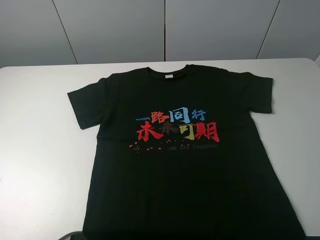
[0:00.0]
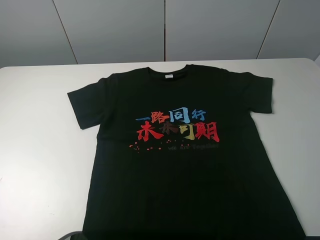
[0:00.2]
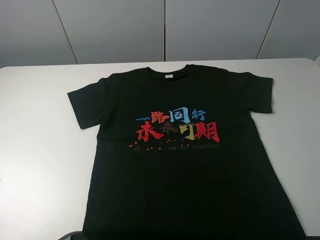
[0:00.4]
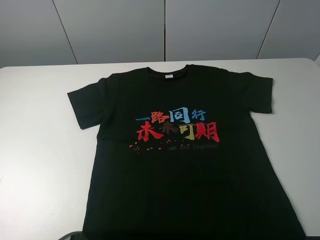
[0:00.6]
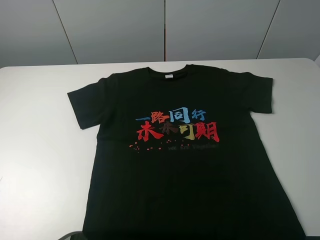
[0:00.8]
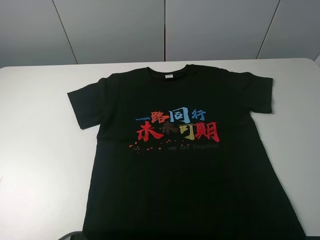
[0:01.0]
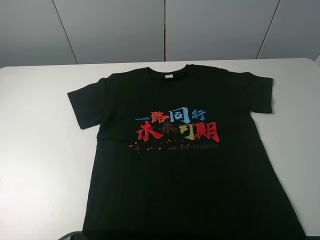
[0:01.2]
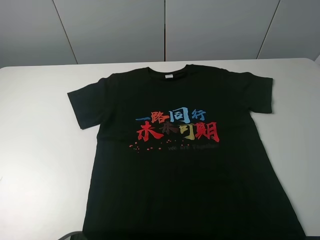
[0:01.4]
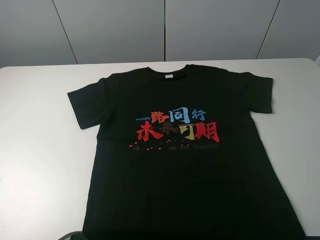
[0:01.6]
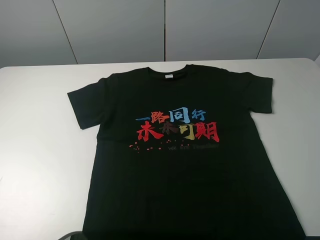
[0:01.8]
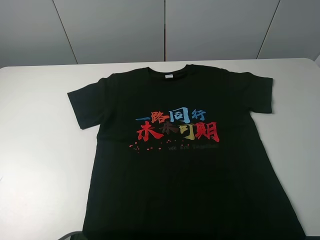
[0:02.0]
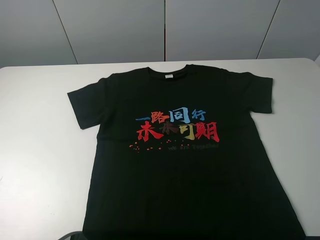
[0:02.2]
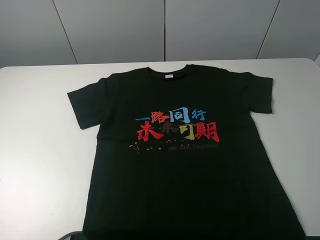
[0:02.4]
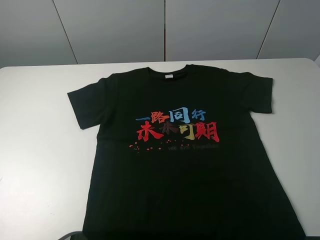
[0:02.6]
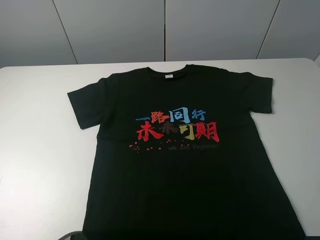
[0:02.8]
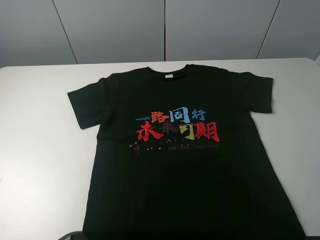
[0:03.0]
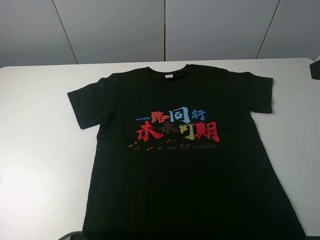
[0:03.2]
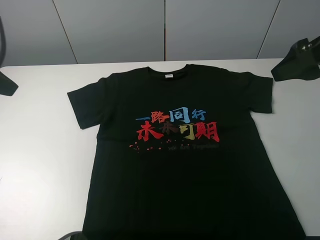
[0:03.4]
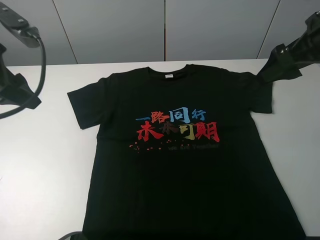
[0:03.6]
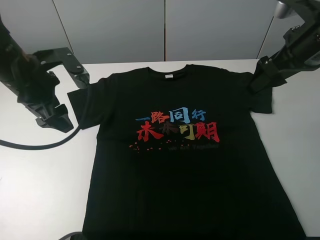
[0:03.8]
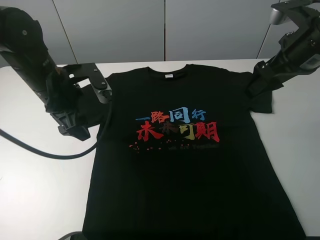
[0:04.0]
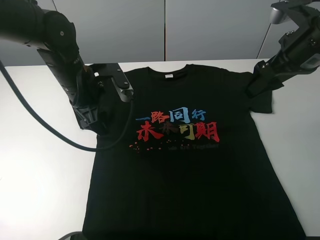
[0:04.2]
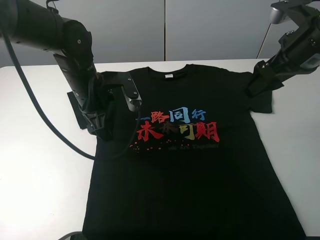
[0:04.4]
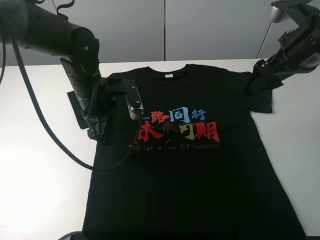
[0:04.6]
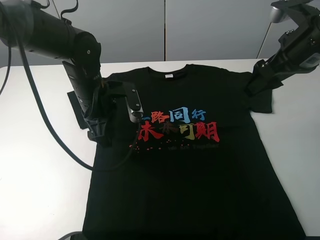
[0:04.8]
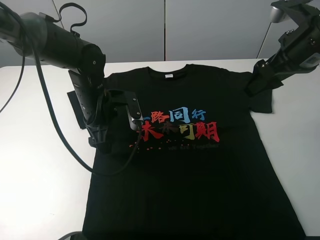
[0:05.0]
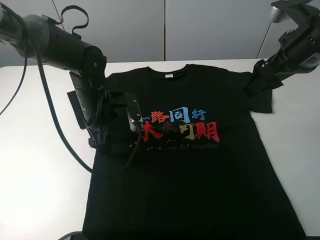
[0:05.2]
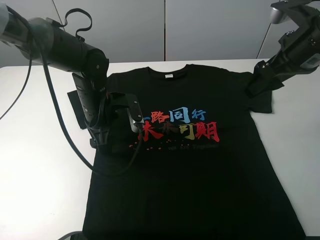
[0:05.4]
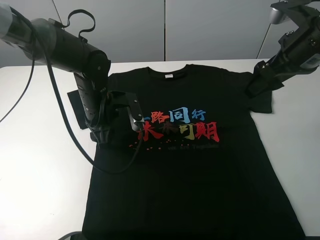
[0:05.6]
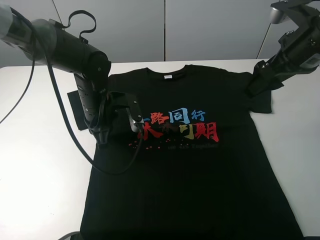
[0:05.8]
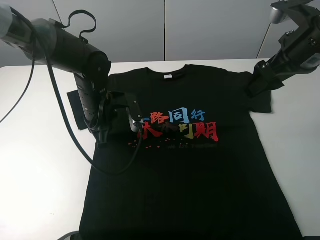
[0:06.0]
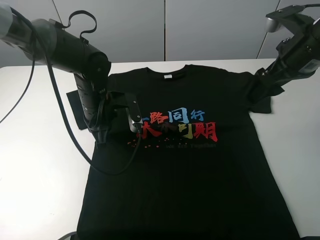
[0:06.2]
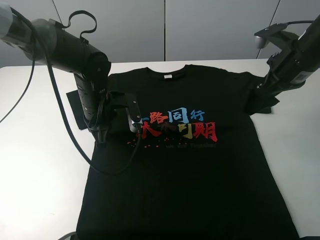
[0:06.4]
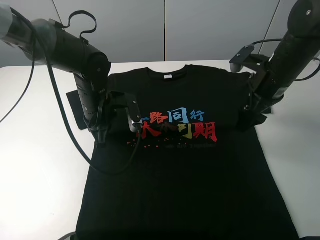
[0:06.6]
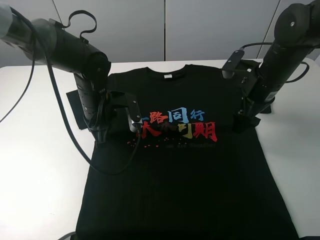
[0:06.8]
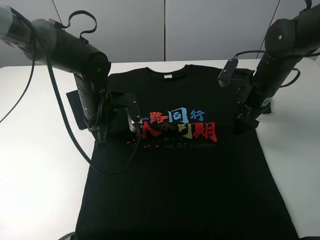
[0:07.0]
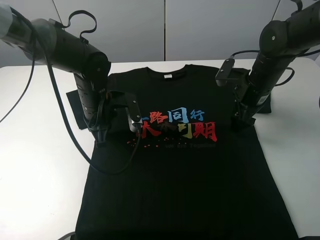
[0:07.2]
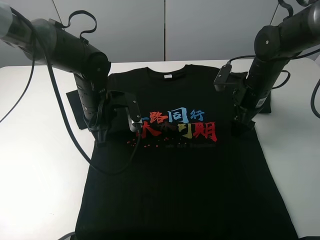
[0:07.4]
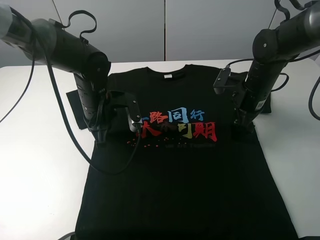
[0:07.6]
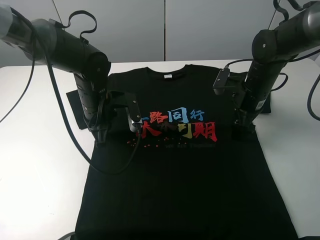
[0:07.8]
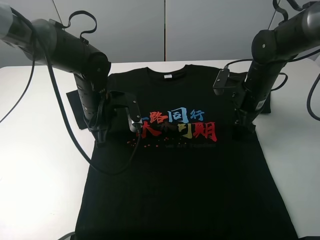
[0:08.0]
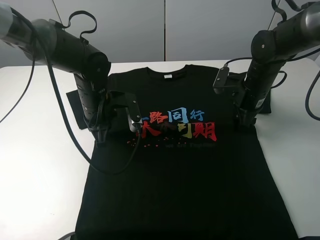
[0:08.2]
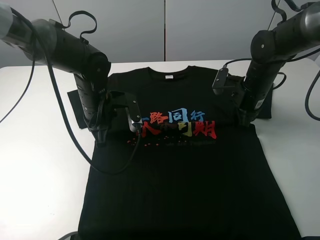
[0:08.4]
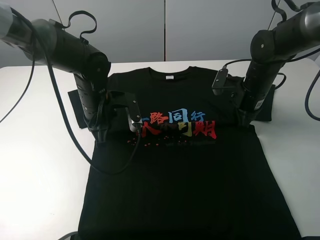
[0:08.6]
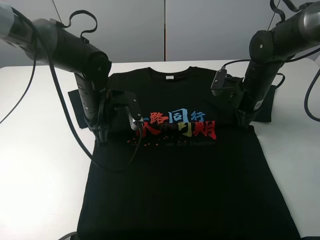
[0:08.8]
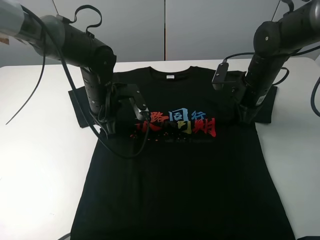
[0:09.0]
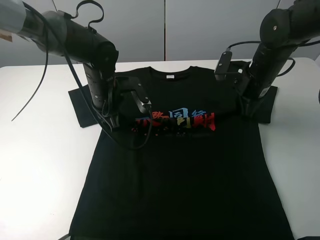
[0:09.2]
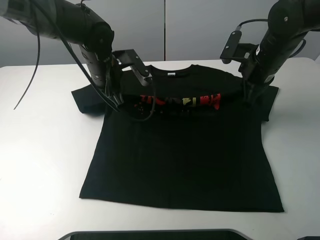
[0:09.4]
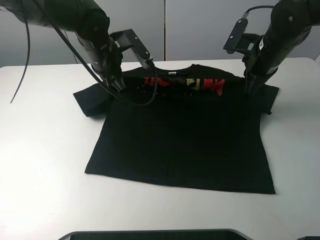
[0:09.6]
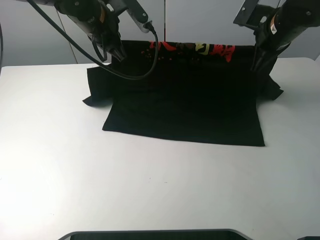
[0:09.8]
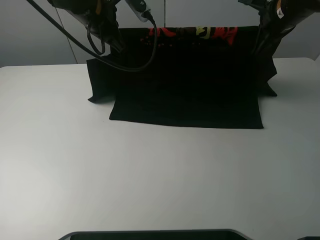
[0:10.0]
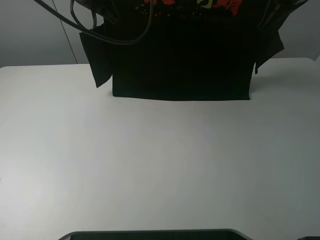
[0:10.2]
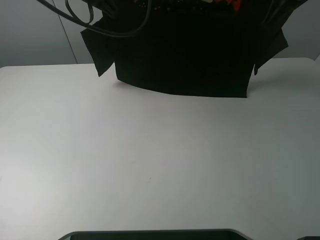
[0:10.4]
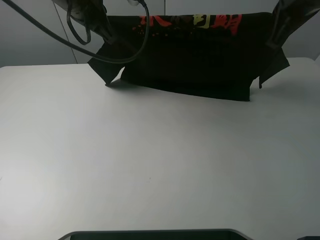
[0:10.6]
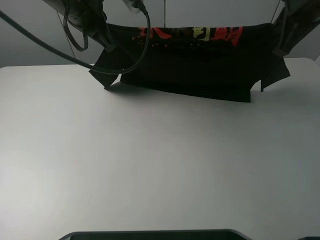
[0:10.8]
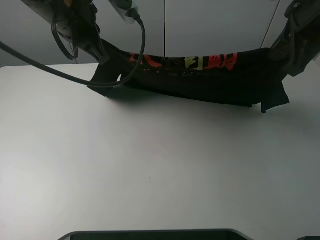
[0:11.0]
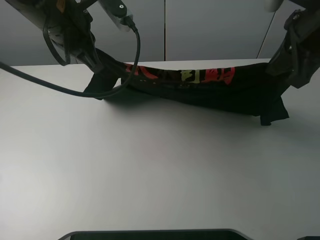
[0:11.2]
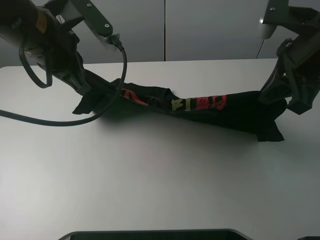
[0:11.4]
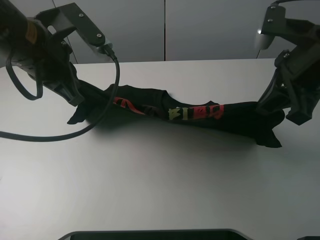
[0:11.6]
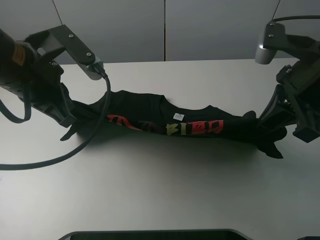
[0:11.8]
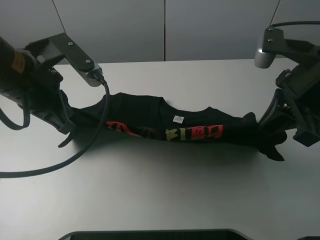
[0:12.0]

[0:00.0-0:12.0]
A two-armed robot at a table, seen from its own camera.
Task of the whole recording: fold the clothes on the table.
Step, 0:00.0 to 0:08.6: Lift the black T-shirt with the left gripper.
0:00.0 to 0:01.6: Both grippers stay put.
0:03.0 to 0:04.4: The right gripper heads forward and downward, covering some 20 cm. The left gripper shifts about 35 cm downward, to the right and forward.
0:04.4 to 0:06.0: The left gripper closes up.
0:06.0 to 0:07.6: The right gripper heads downward, covering some 15 cm.
0:07.6 to 0:09.0: The right gripper closes up.
0:09.0 to 0:10.4: The two grippers go approximately 20 cm upward.
0:10.4 to 0:12.0: The right gripper is displaced backward by roughly 15 cm; the left gripper goes roughly 20 cm backward, downward and to the left.

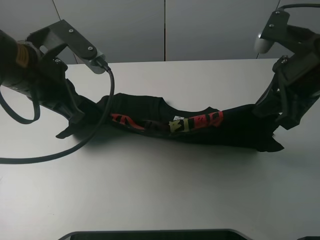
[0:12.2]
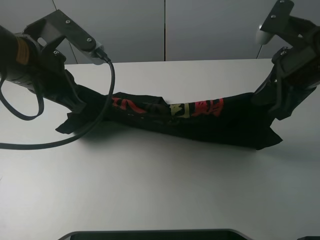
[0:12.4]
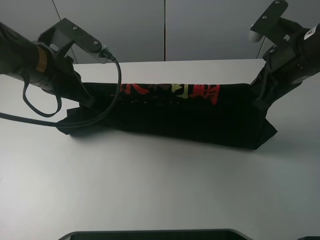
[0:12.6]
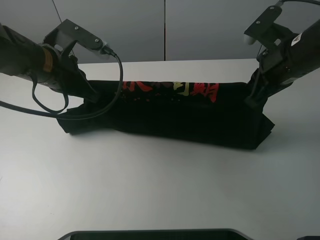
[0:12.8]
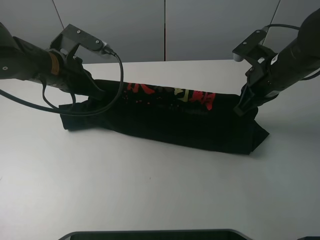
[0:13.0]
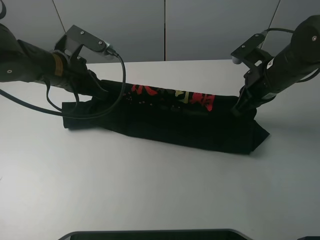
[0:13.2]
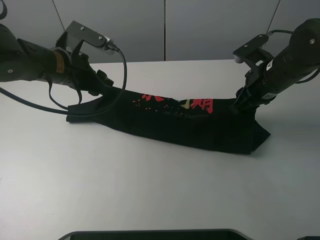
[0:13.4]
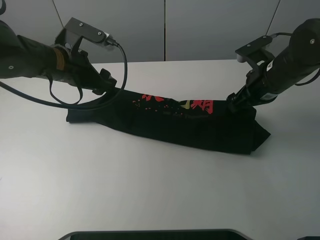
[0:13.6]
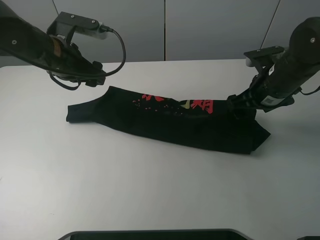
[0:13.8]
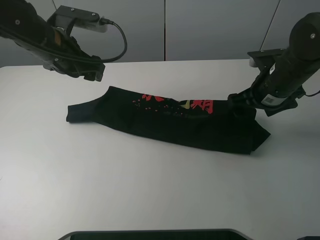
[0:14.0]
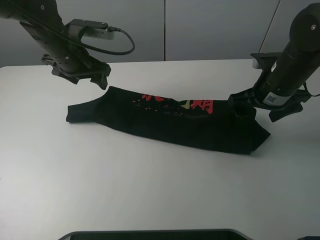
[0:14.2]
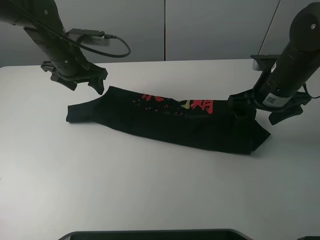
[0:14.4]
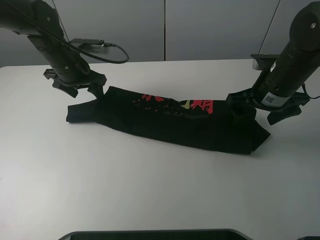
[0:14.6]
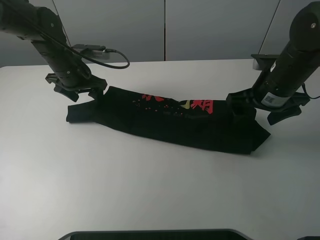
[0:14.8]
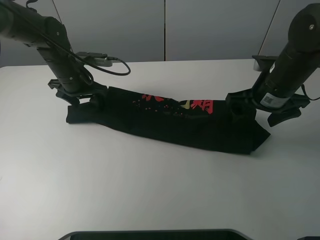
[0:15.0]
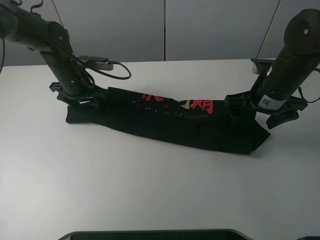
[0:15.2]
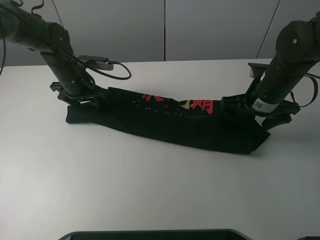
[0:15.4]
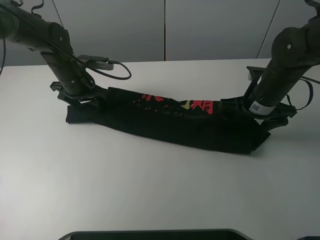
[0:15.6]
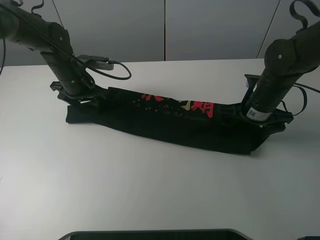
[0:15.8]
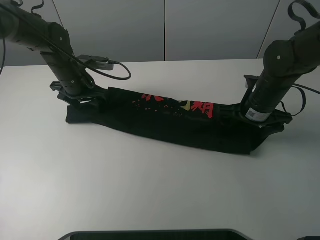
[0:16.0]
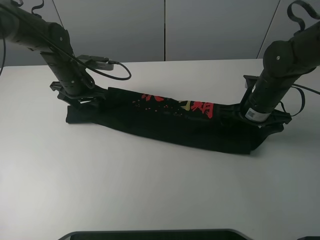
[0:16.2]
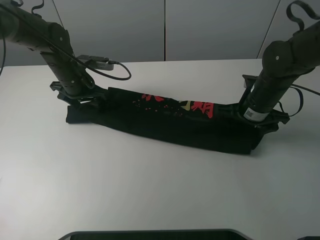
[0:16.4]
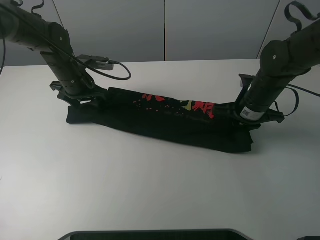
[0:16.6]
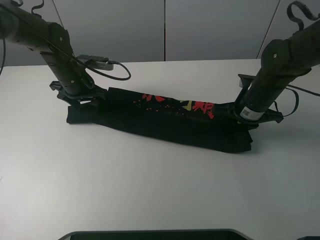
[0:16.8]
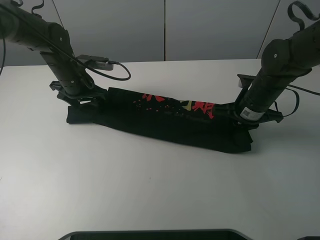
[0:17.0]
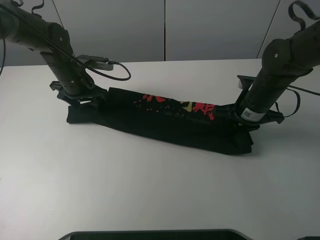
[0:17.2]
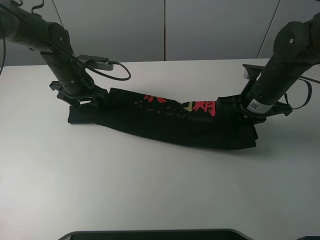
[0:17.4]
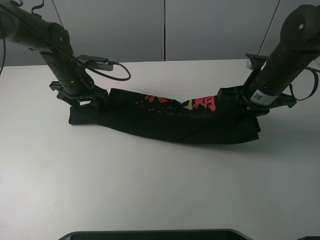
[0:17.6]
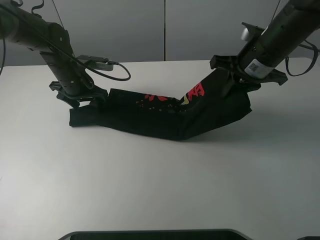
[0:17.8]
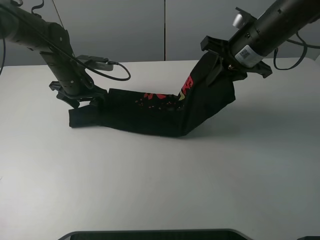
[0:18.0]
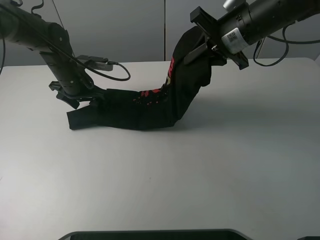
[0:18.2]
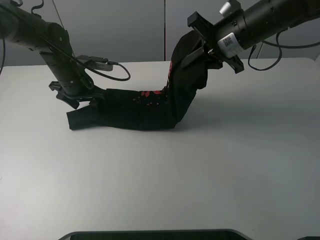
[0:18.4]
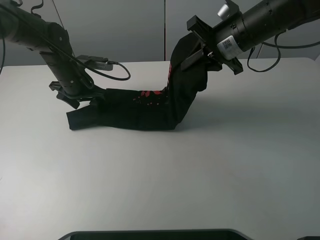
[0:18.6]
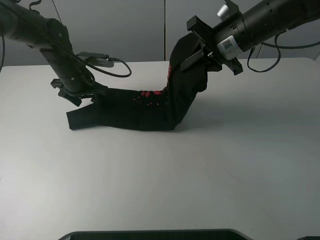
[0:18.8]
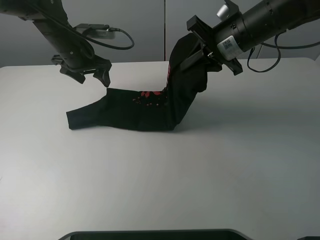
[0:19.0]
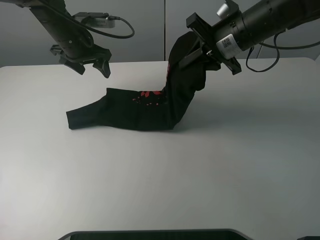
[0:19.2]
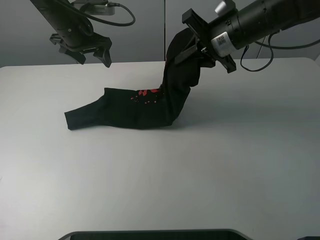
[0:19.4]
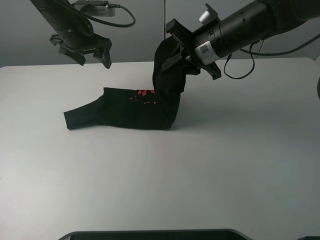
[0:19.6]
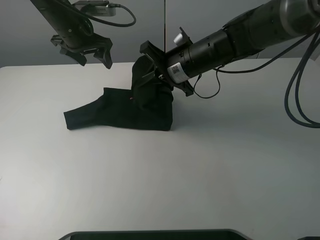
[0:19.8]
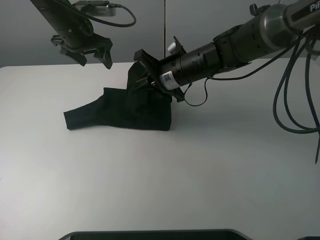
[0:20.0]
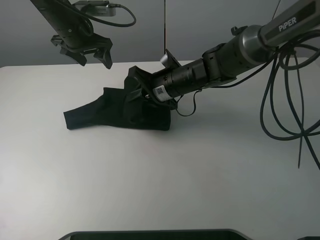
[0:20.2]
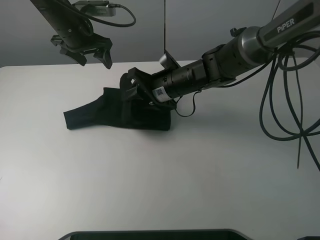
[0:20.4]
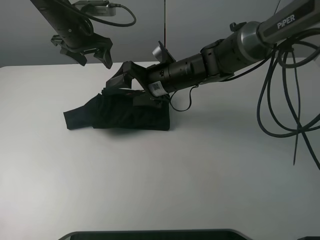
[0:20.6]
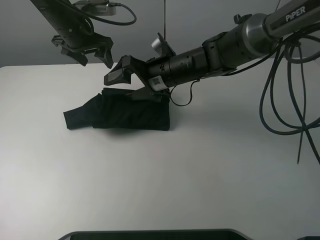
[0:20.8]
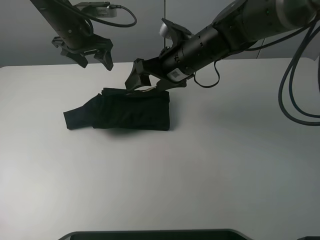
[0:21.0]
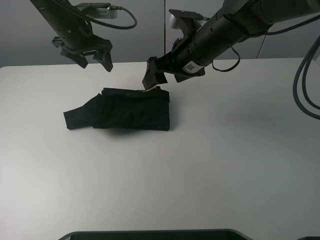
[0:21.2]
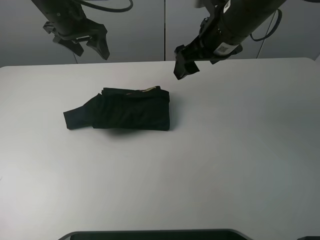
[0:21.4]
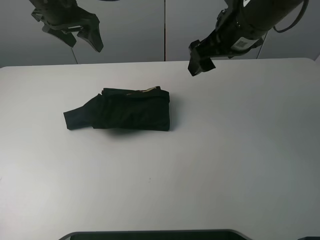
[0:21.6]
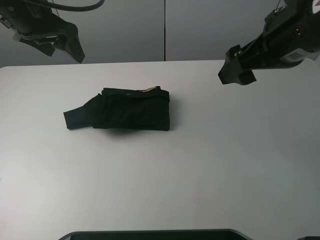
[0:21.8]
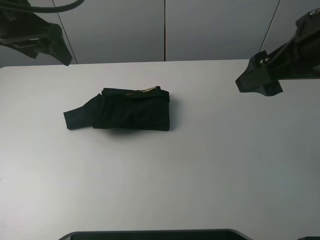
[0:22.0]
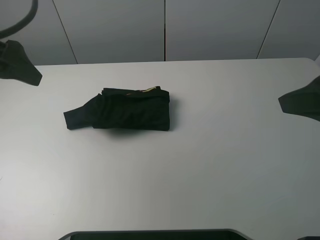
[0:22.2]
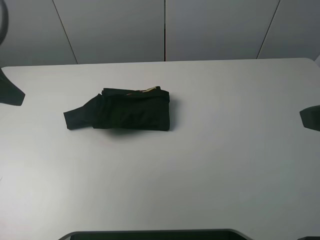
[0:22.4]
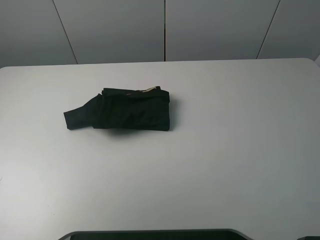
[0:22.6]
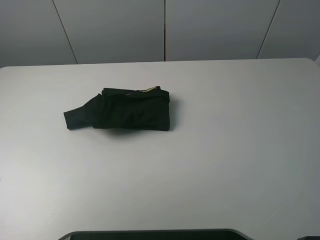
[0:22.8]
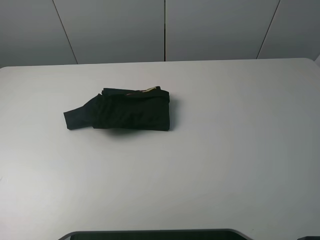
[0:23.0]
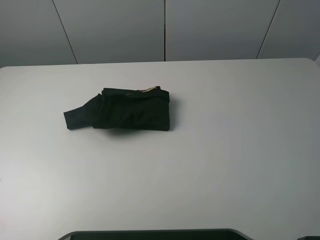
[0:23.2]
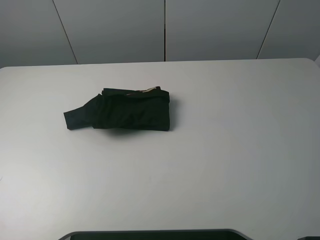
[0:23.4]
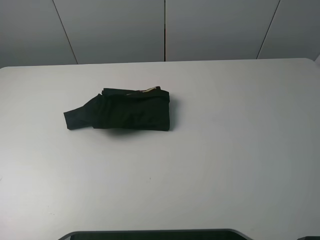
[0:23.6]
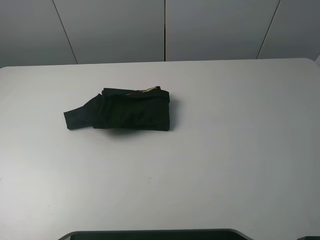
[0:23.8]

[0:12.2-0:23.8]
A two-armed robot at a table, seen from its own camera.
Task of the whole recording: fold the clothes on the table.
Step, 0:14.0 to 0:16.6: Grasp the black T-shirt with the right gripper.
Step, 0:16.8 to 0:20.8: Fold the black T-shirt from right to left with right gripper.
0:12.2 to 0:13.6: The left gripper travels forward and downward by about 10 cm, and opens, while the right gripper heads downward and forward, covering some 10 cm, and opens.
0:13.6 to 0:15.0: The left gripper travels forward and downward by approximately 10 cm.
0:15.0 to 0:16.6: The right gripper is displaced downward by some 5 cm, and closes up.
0:16.6 to 0:18.0: The right gripper moves upward, some 15 cm.
0:18.0 to 0:19.4: The left gripper heads upward, covering roughly 10 cm.
0:19.4 to 0:21.0: The right gripper shifts about 5 cm to the left, and opens up.
0:21.0 to 0:22.4: The left gripper goes roughly 30 cm backward and to the left; the right gripper shifts about 35 cm backward, to the right and upward.
0:22.4 to 0:23.8: The right gripper shifts approximately 5 cm backward; the left gripper moves backward and to the left, approximately 15 cm.
